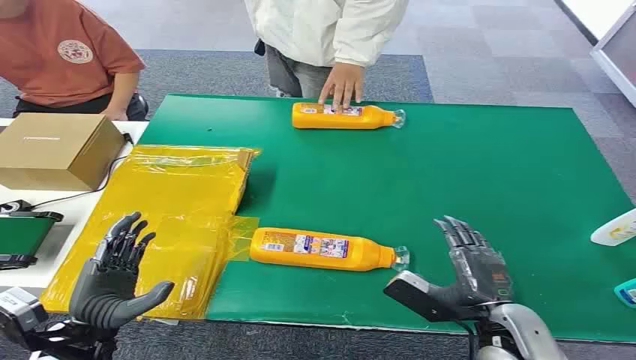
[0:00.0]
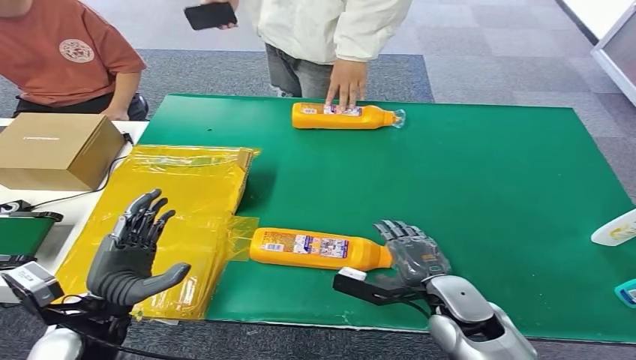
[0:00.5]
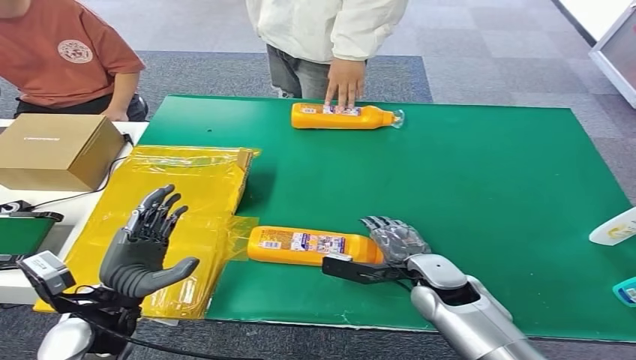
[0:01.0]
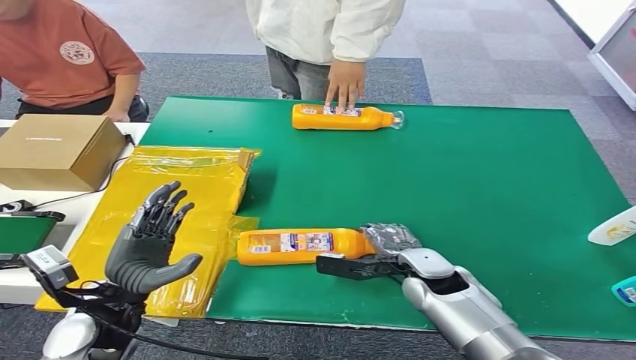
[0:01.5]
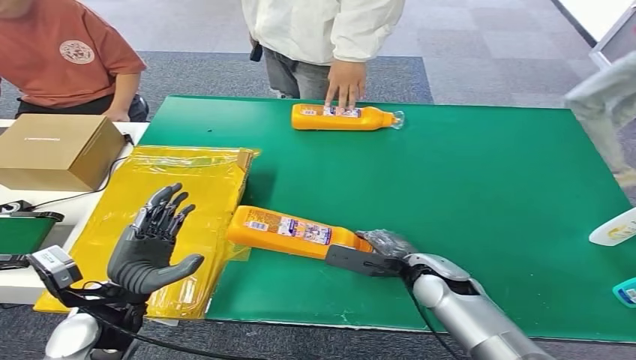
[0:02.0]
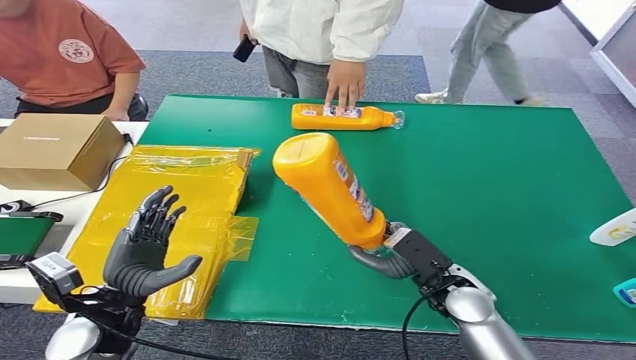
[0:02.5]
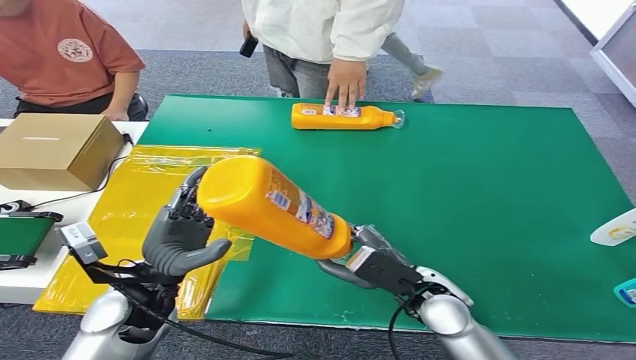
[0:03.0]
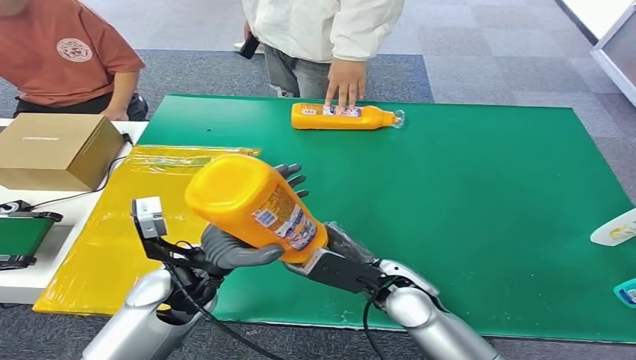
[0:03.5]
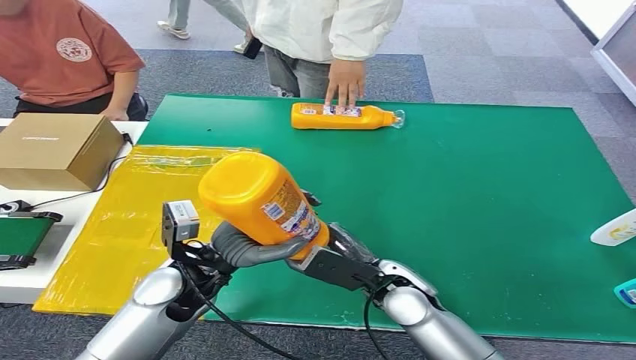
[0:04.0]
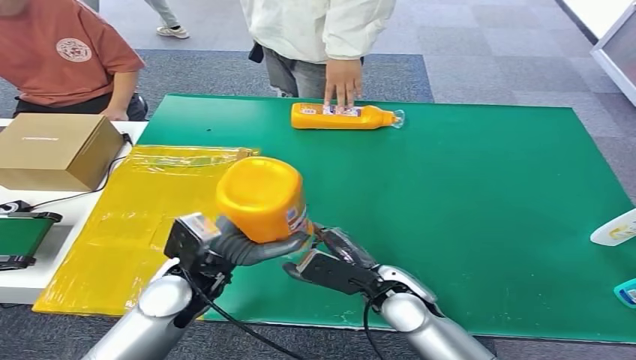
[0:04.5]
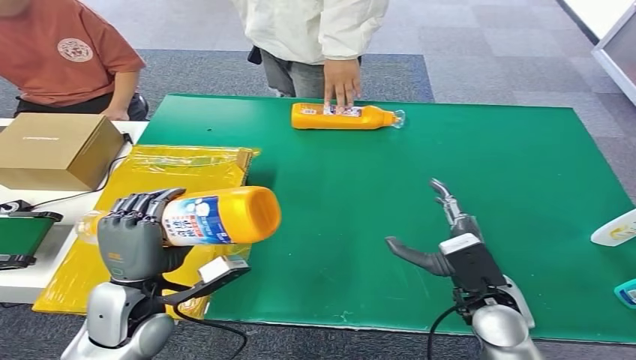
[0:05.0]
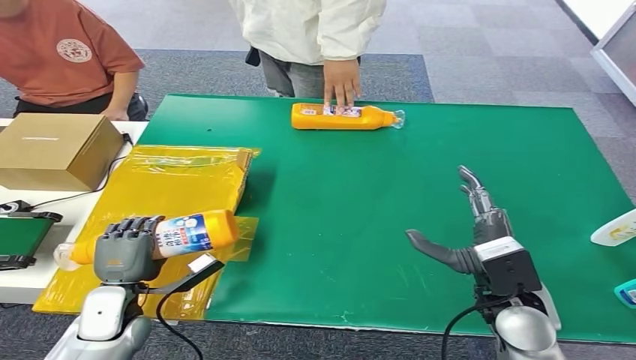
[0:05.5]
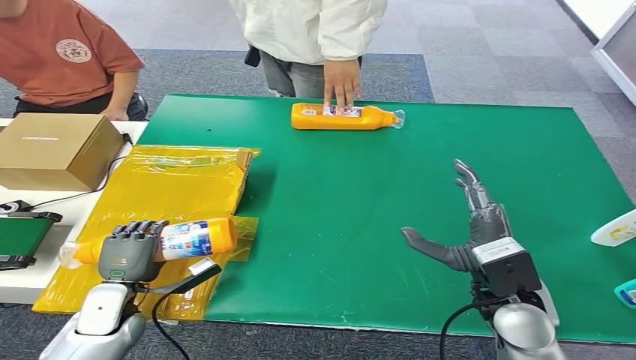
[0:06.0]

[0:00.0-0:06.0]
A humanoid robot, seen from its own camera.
Step, 0:00.0 to 0:02.0: Pick up the bottle from the table.
Step, 0:02.5 to 0:06.0: Turn the bottle to the front side.

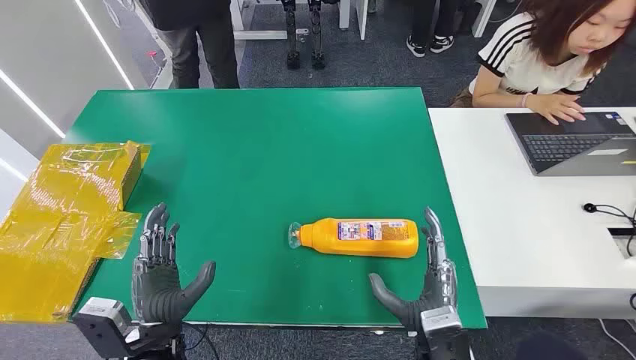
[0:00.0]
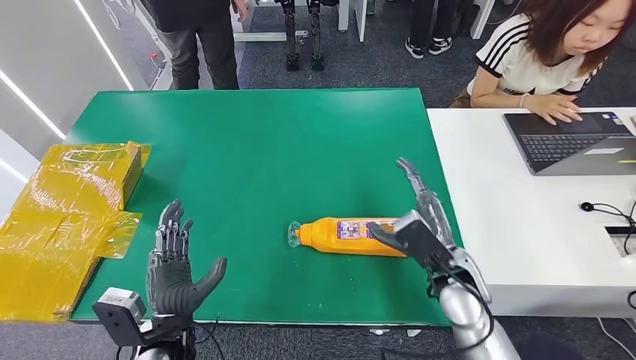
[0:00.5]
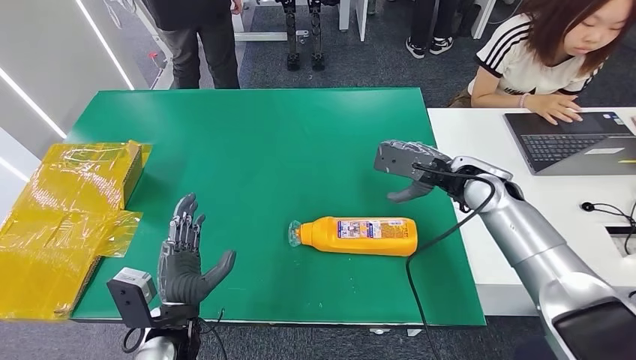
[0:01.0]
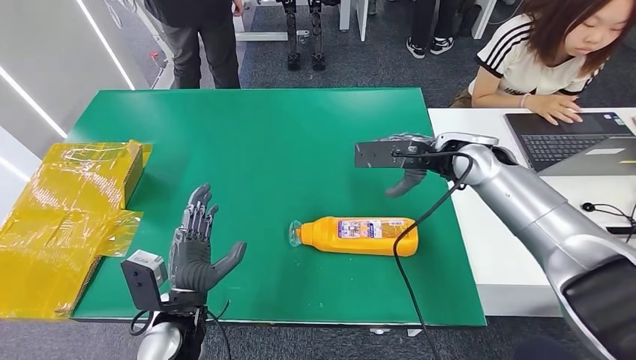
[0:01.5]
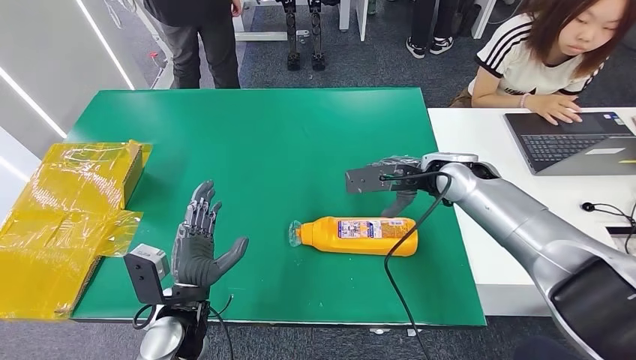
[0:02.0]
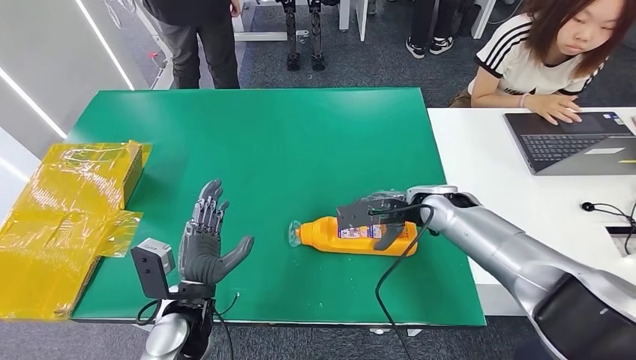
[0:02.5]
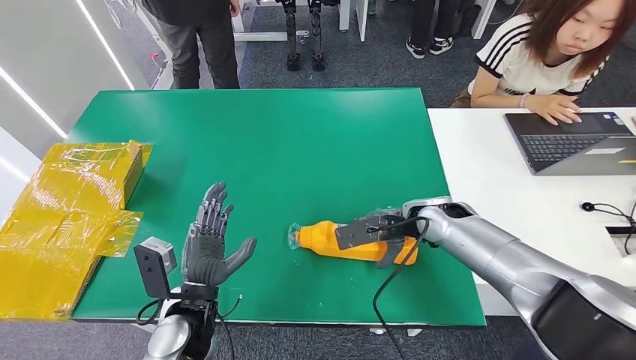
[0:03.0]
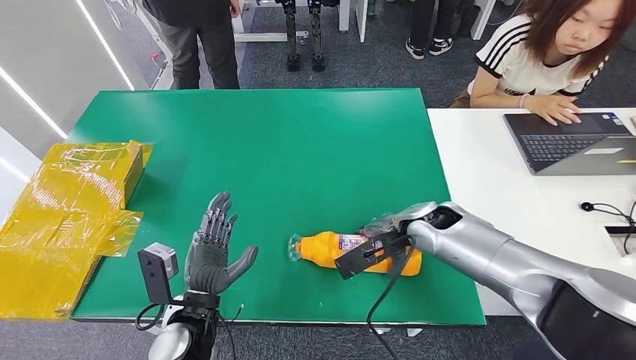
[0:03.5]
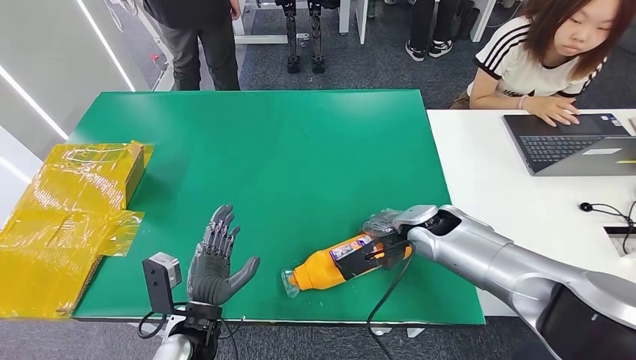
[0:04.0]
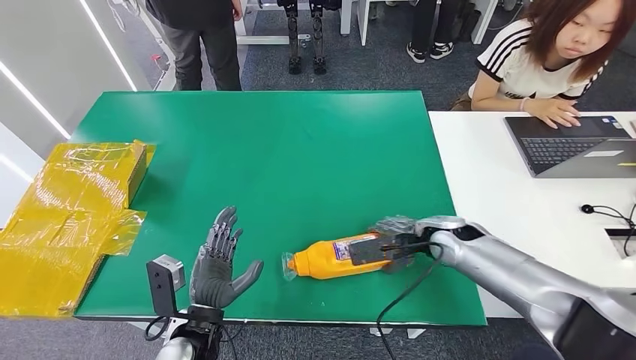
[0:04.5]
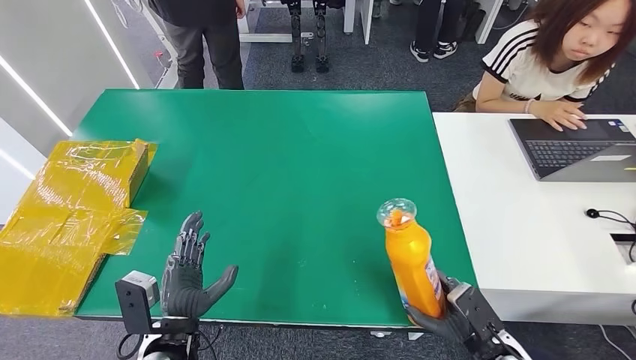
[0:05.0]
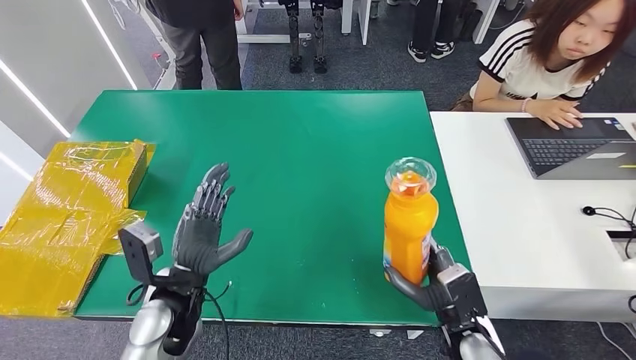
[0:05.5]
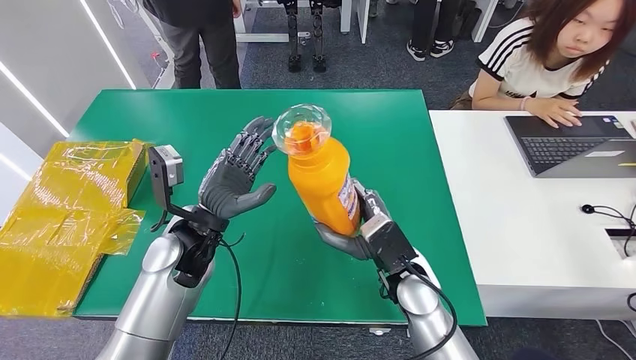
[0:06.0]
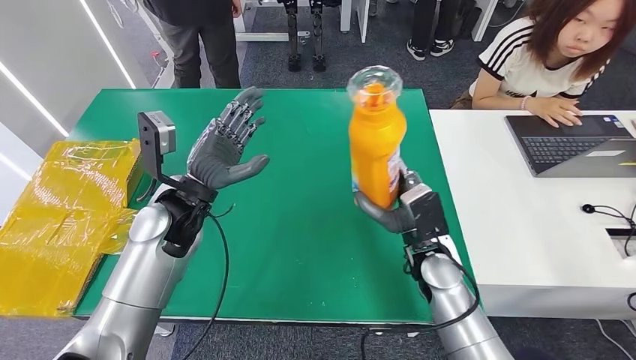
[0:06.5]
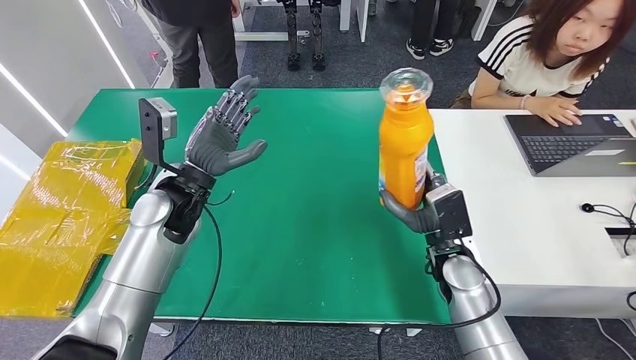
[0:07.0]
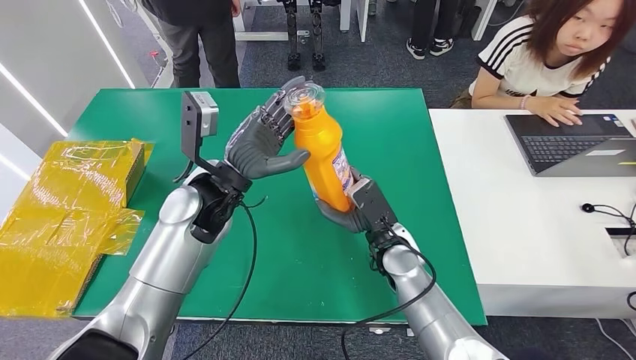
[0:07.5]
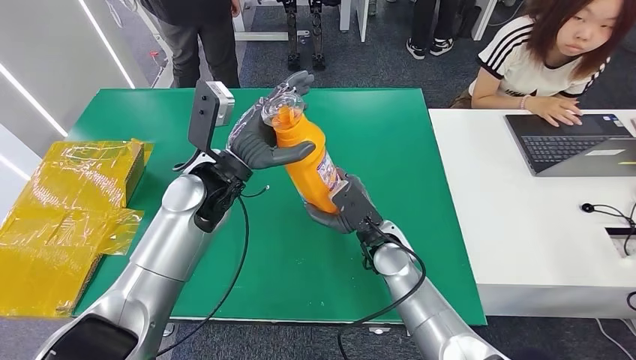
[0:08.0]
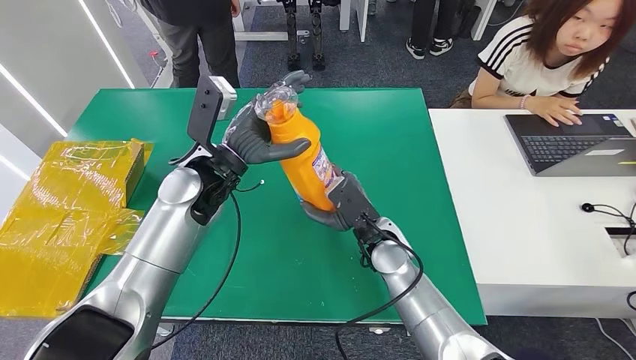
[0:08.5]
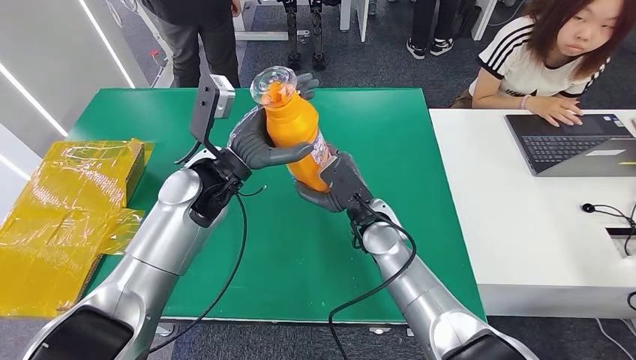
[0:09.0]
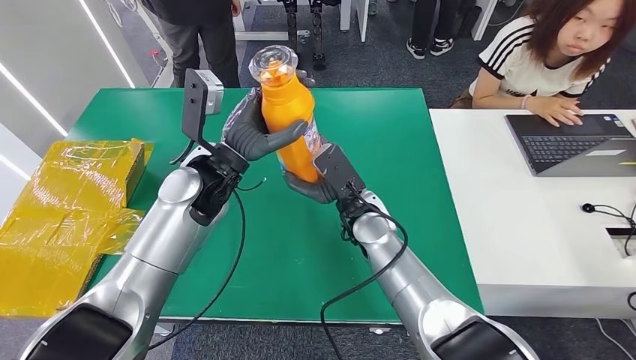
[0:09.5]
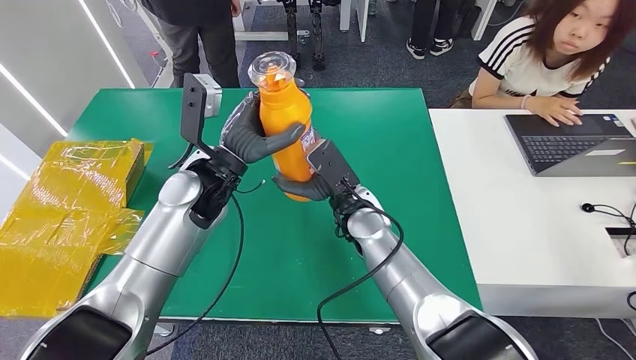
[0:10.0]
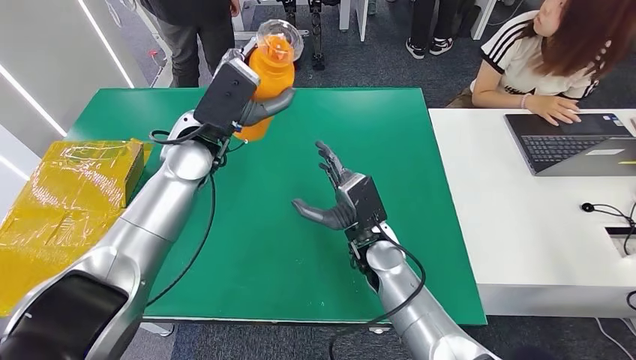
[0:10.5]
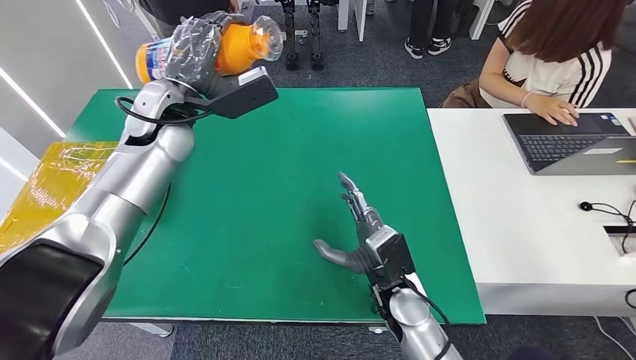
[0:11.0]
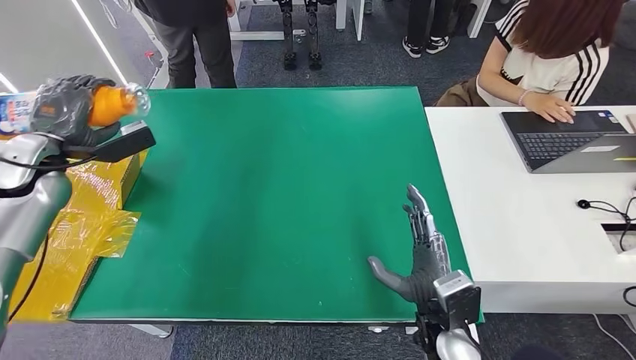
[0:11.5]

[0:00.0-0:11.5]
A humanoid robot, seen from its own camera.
Step, 0:00.0 to 0:05.5: Pick up the bottle from the table.
0:06.0 to 0:07.5: The left hand travels upward by about 5 cm, while the right hand heads forward, covering about 5 cm, and goes to the right and returns, some 10 cm each way.
0:07.5 to 0:09.5: The right hand goes some 10 cm upward and to the left.

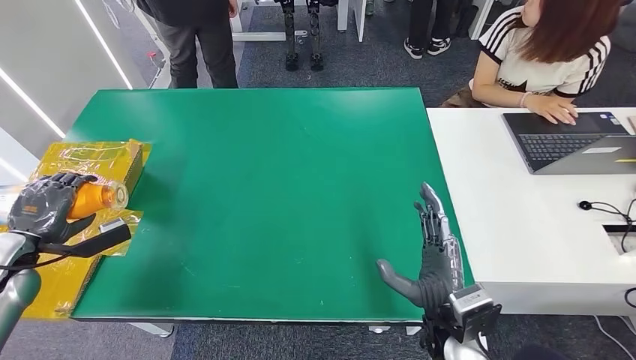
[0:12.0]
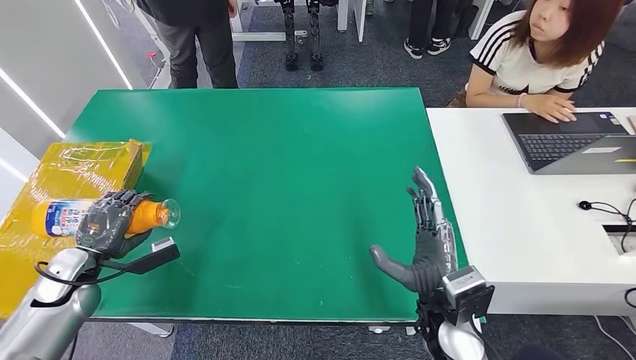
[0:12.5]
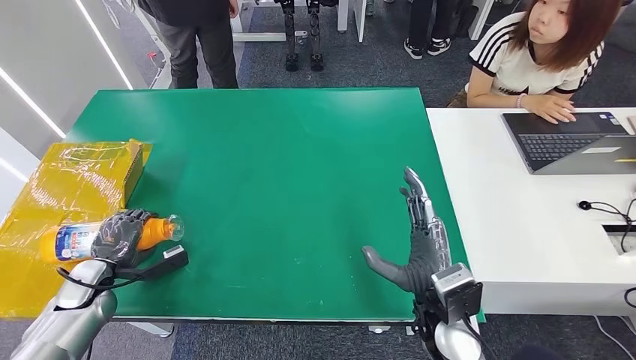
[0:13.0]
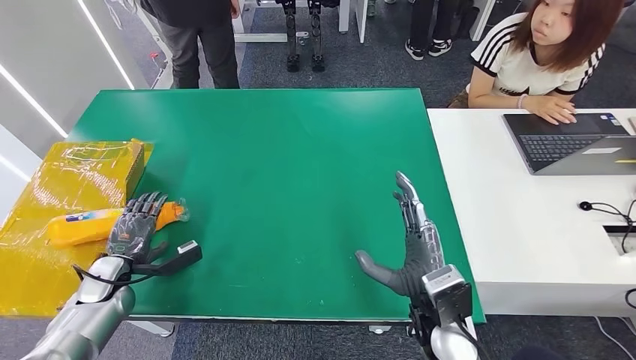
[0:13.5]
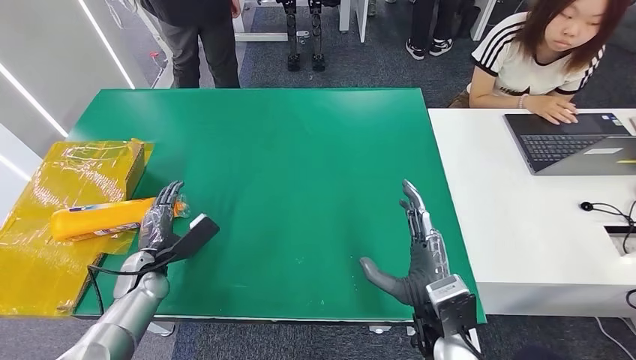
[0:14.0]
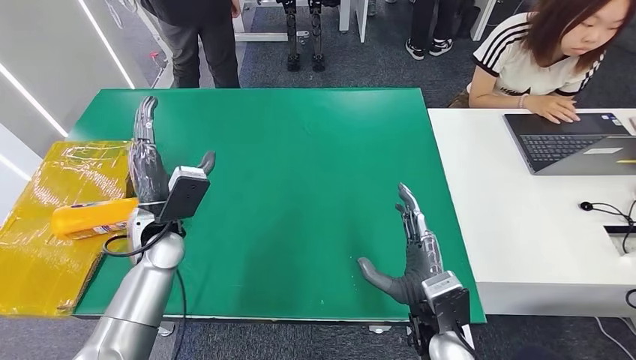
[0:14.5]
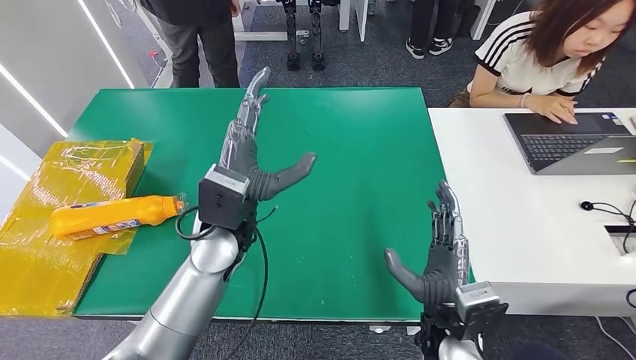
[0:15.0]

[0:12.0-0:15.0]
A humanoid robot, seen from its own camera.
Step, 0:12.0 to 0:15.0: Turn the bottle to the front side.
0:12.0 to 0:13.5: The left hand moves downward and to the right, about 15 cm.
